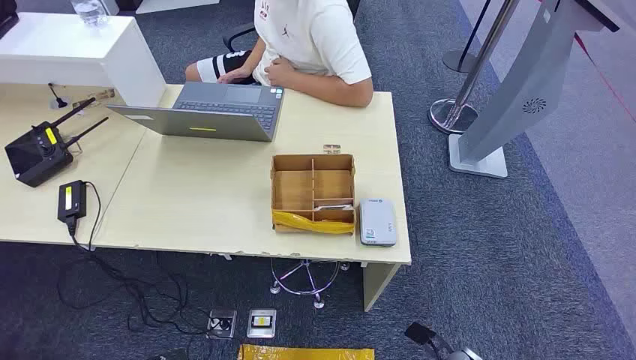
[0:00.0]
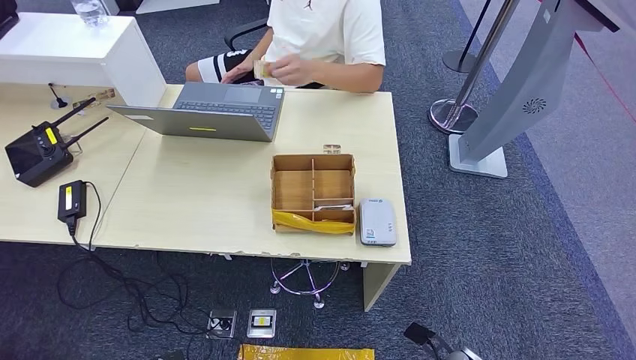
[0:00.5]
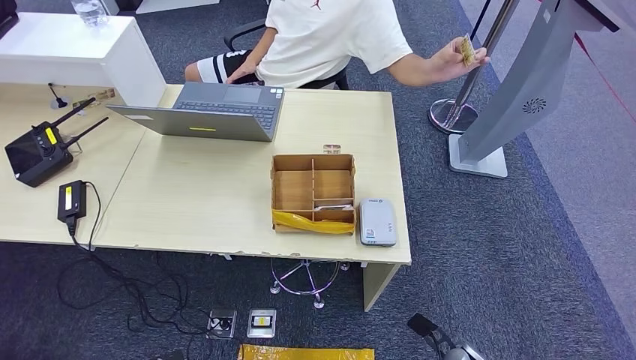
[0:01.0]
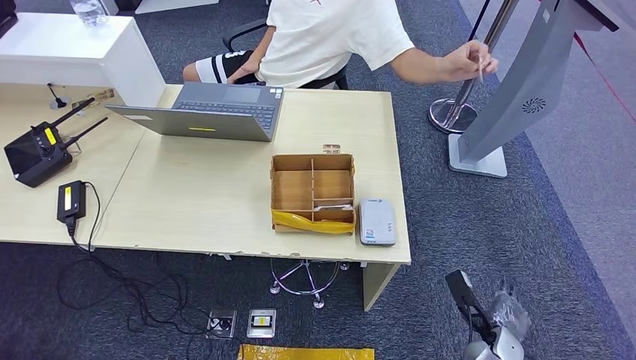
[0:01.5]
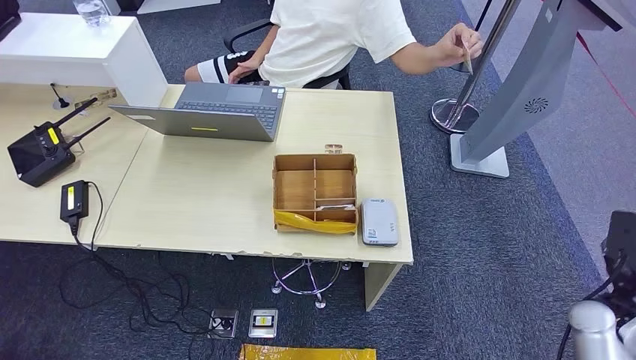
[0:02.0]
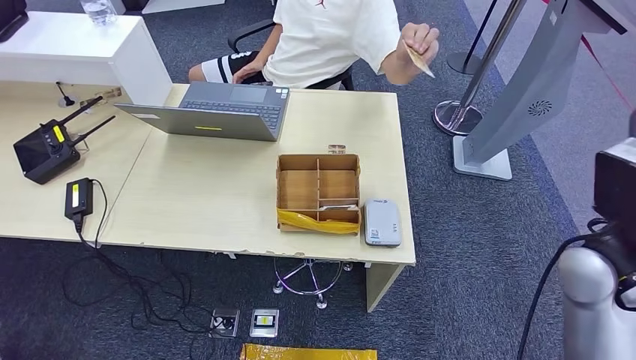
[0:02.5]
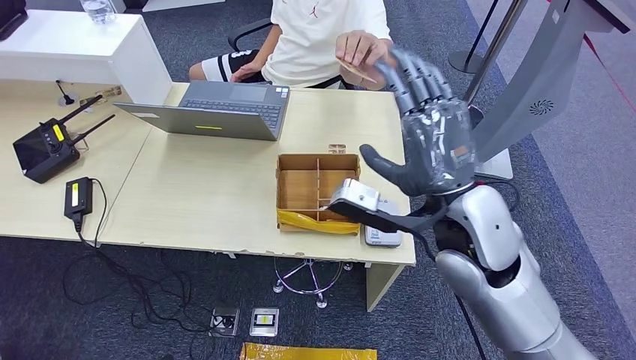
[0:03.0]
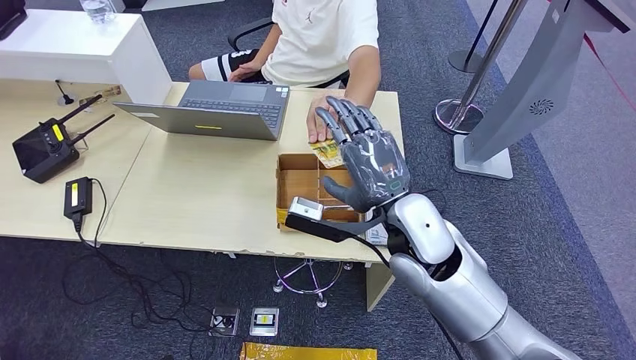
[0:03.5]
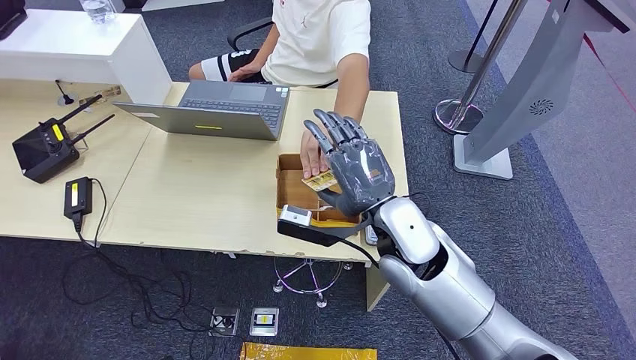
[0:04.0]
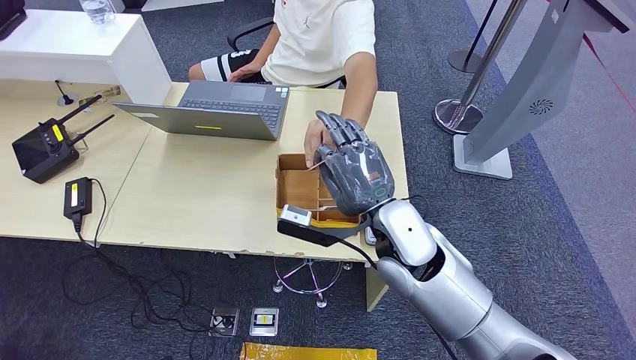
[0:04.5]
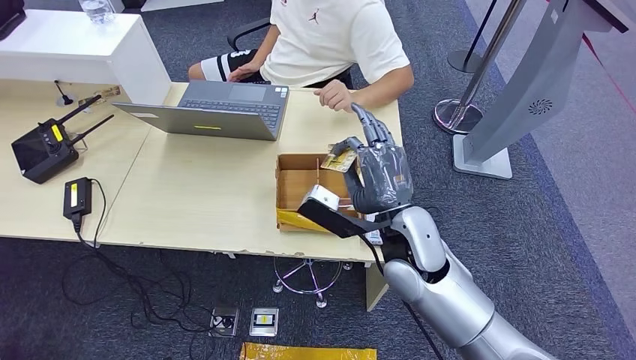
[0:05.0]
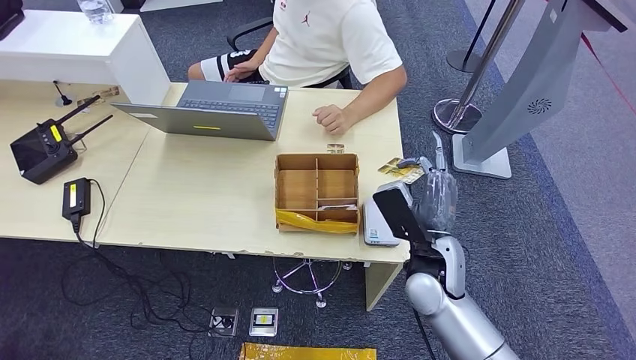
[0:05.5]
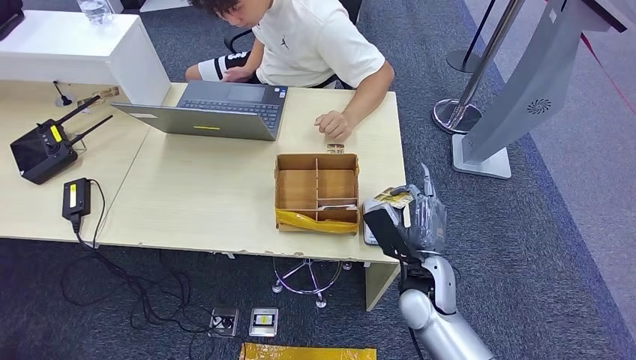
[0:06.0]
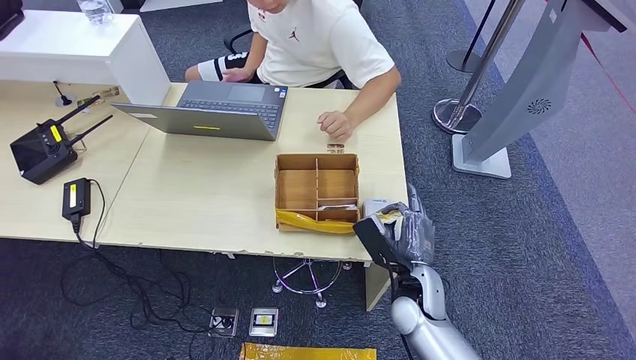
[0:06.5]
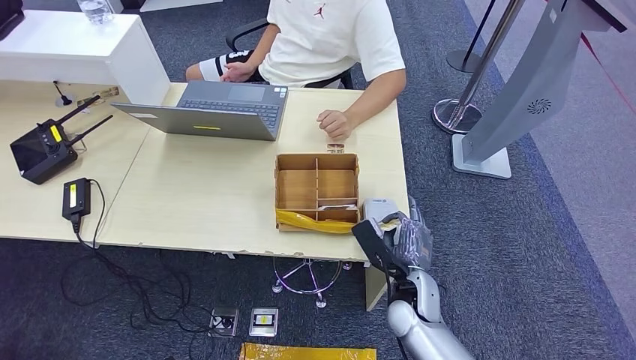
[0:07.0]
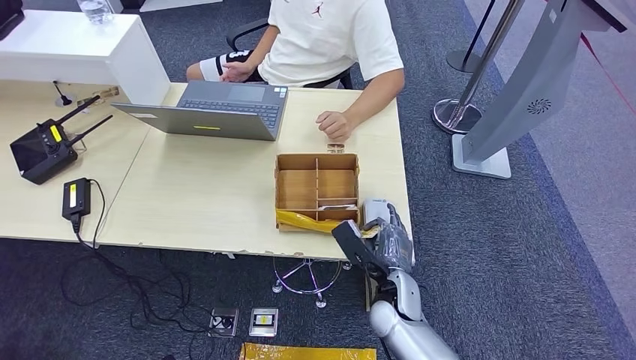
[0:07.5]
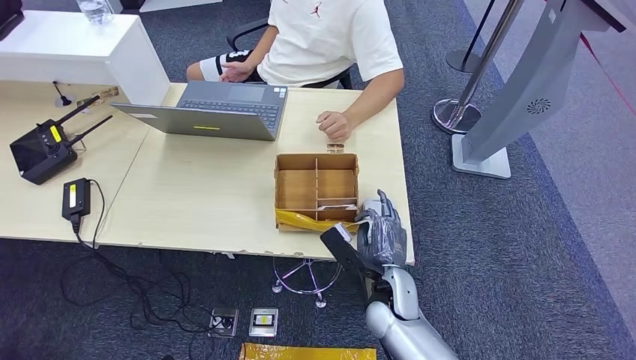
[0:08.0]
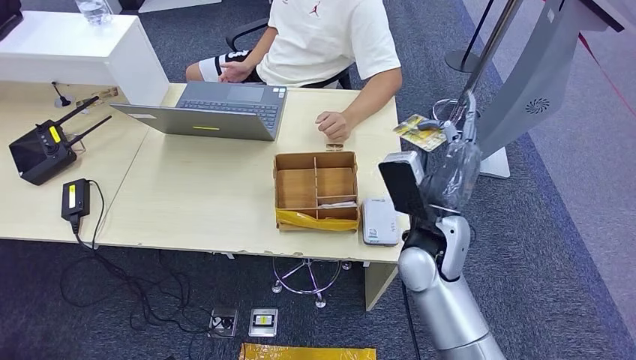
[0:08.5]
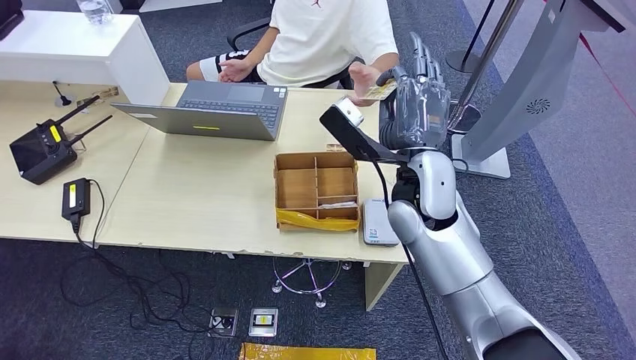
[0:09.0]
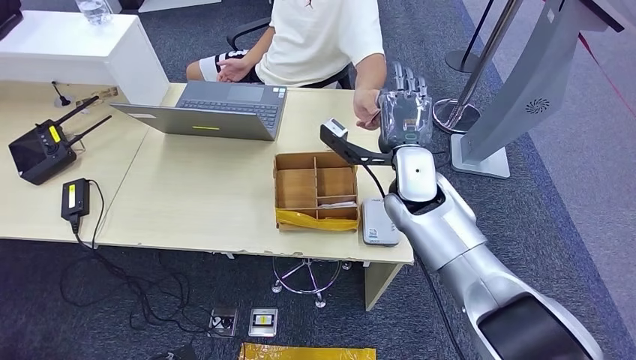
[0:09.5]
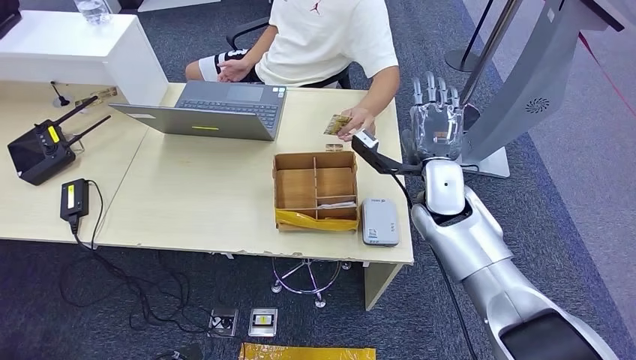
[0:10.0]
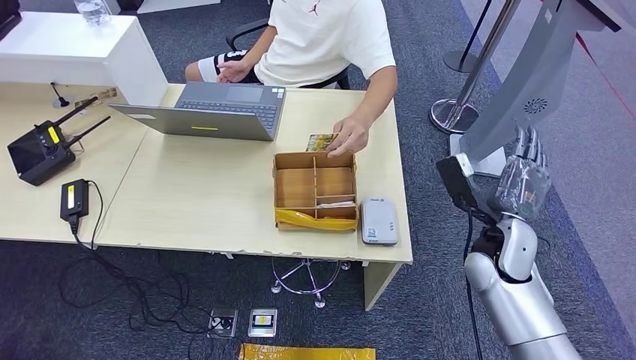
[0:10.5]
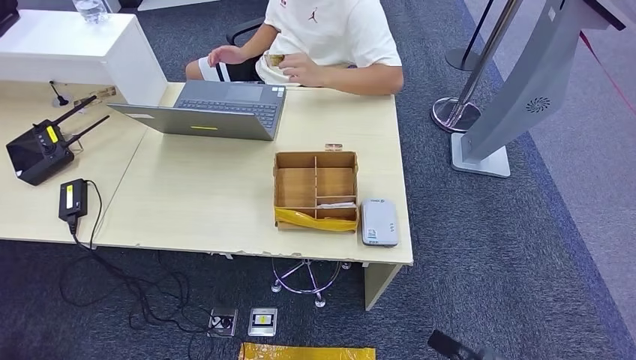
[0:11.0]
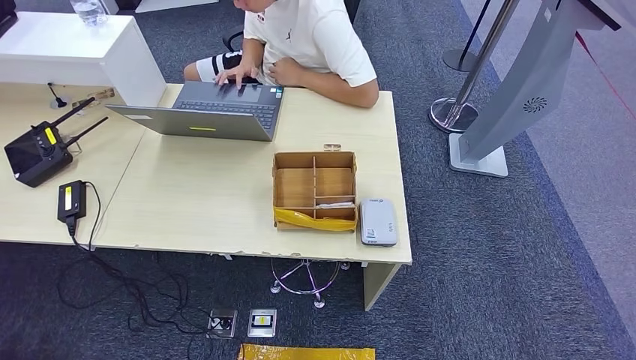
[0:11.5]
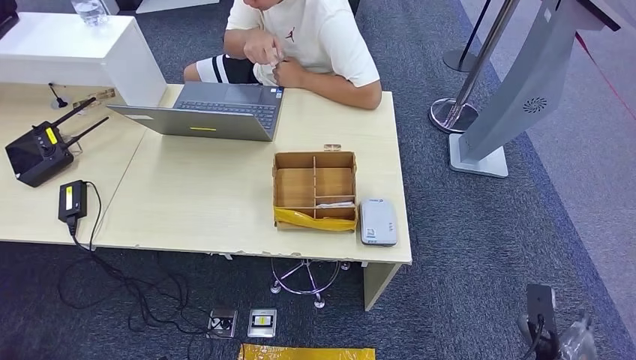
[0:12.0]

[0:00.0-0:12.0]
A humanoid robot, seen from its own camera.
Step, 0:00.0 to 0:05.0: Take the ID card from the person's hand.
Step, 0:05.5 to 0:07.0: Place the ID card on the card reader.
Step, 0:07.5 to 0:10.0: Hand the ID card to the person.
0:04.0 to 0:06.0: The right hand is displaced downward and to the right by about 15 cm.
0:06.0 to 0:08.0: The right hand is displaced to the left by about 5 cm.
0:08.0 to 0:10.0: The right hand shifts approximately 20 cm upward and forward; the left hand heads forward, covering some 5 cm.

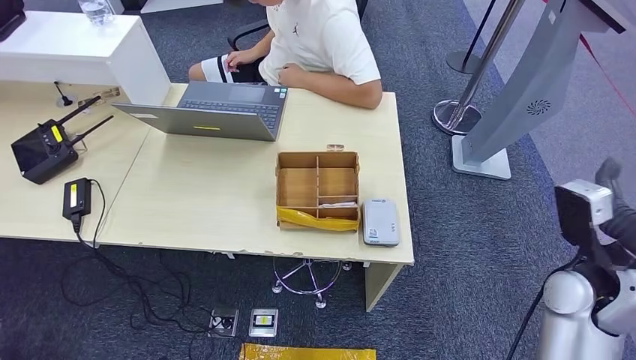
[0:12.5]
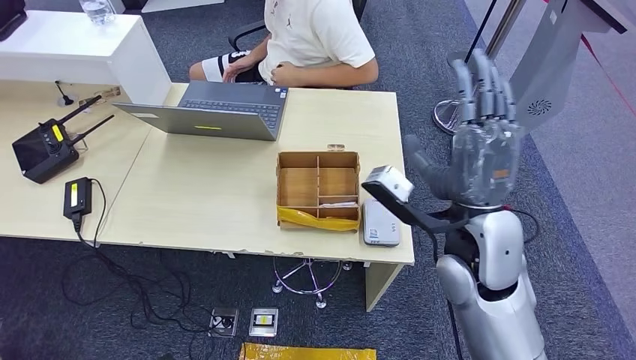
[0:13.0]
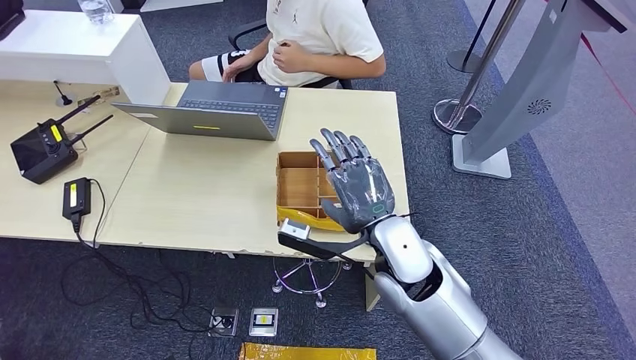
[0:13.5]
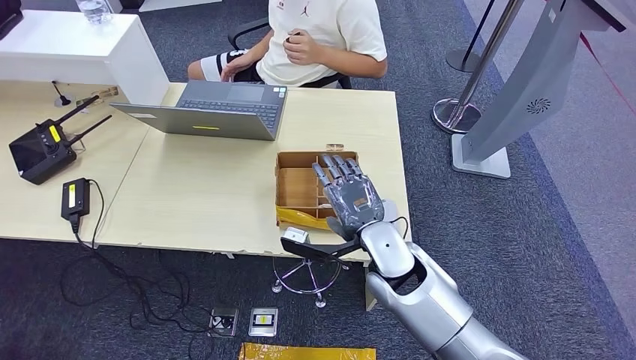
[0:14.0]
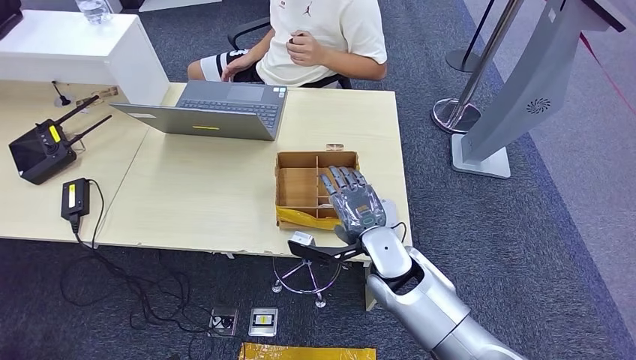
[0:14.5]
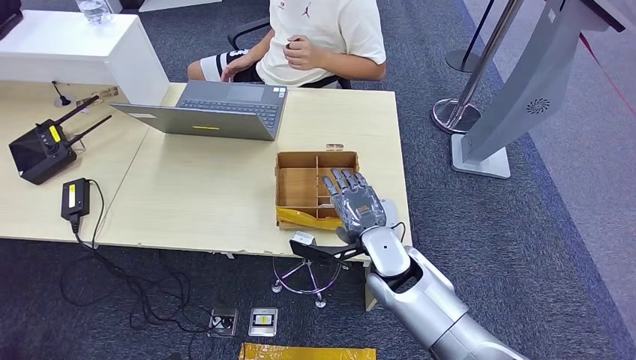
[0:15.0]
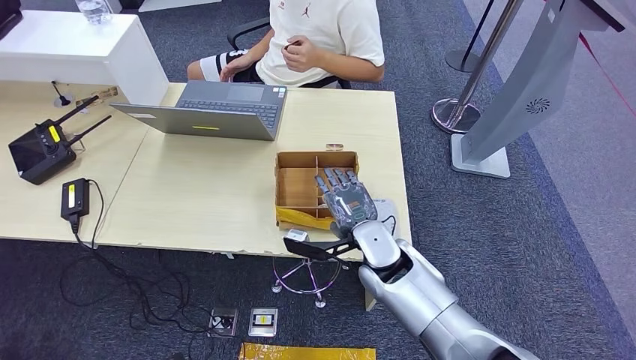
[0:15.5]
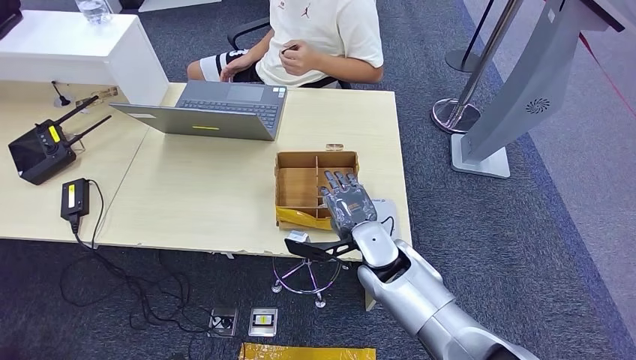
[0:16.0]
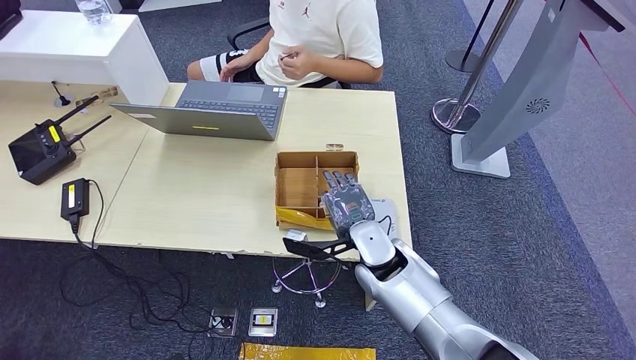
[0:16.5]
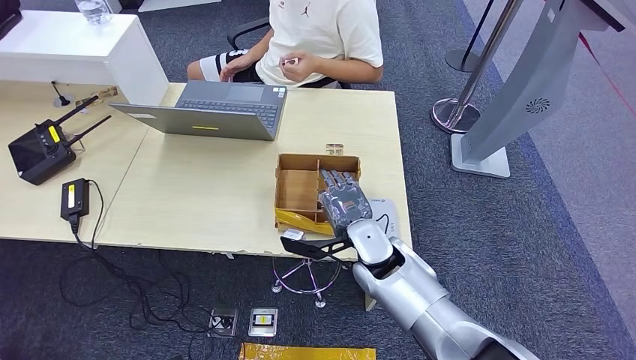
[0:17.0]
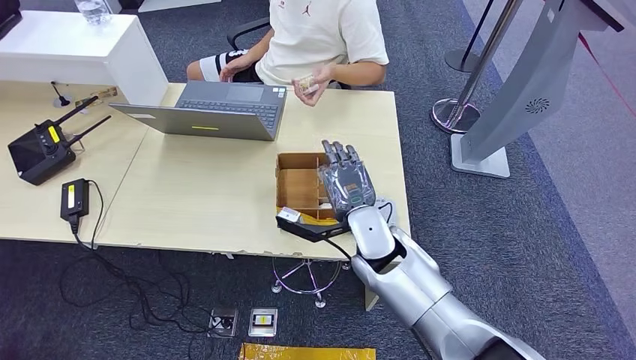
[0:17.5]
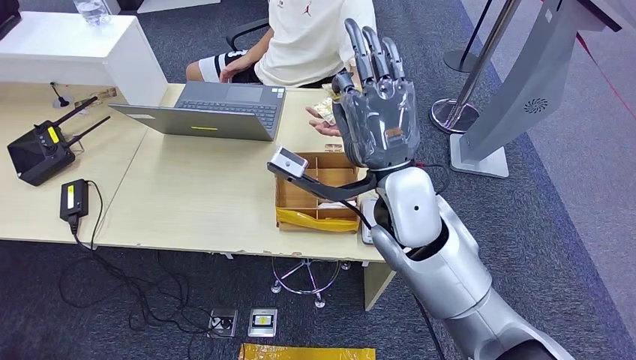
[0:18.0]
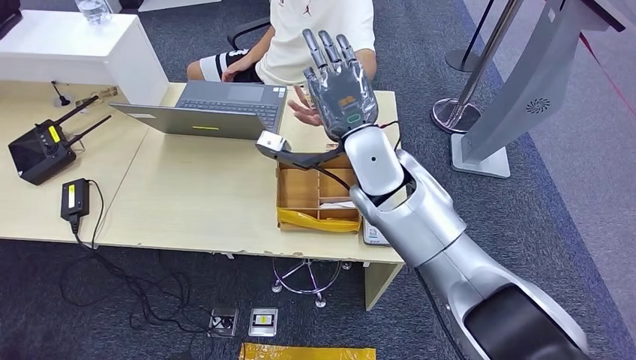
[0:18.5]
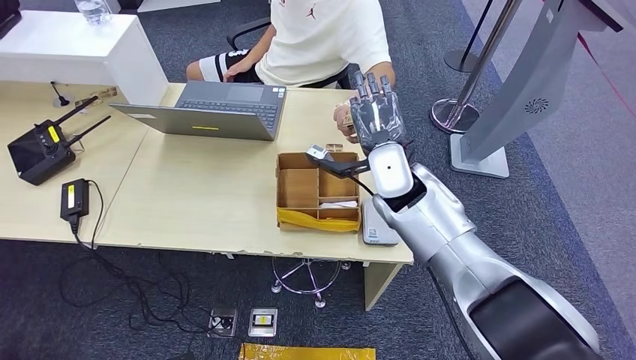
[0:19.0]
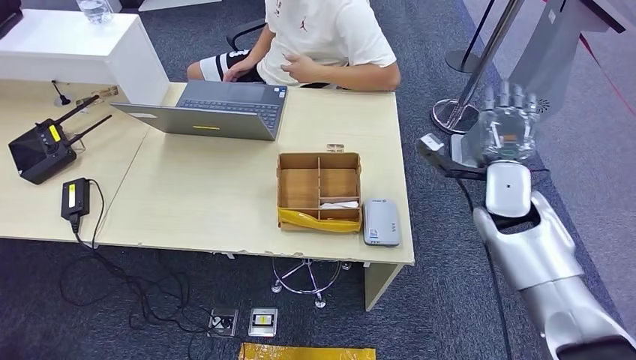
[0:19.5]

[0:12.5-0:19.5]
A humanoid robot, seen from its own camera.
Step, 0:12.5 to 0:18.0: Pick up the room key from the key card box.
Step, 0:18.5 to 0:19.5: Hand the room key to the person.
0:12.5 to 0:14.5: The right hand shifts roughly 25 cm to the left.
0:14.5 to 0:17.5: There are only small adjustments of the hands.
0:17.5 to 0:19.5: The right hand moves to the right, about 20 cm.
